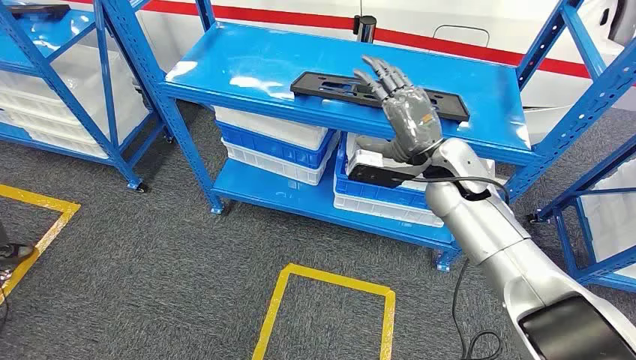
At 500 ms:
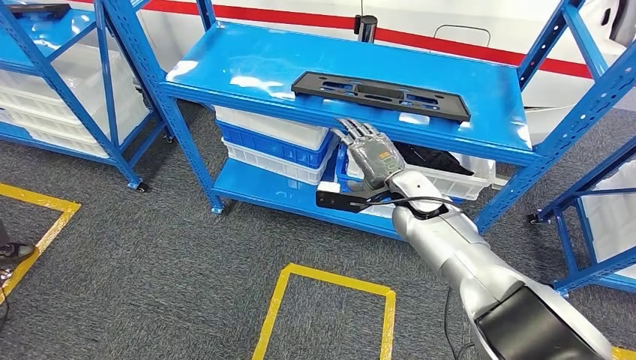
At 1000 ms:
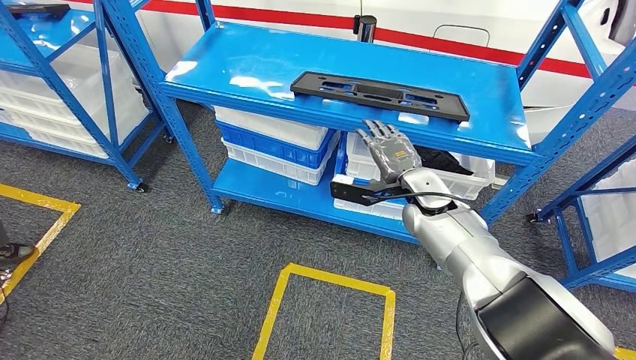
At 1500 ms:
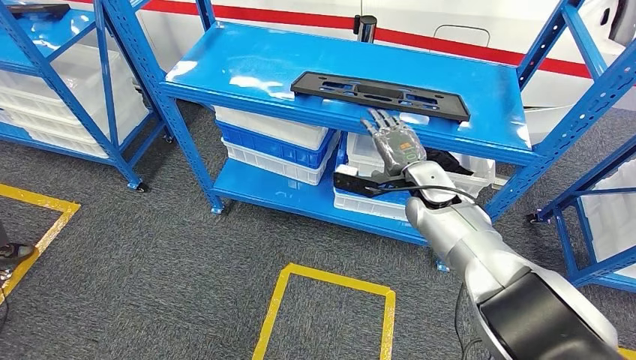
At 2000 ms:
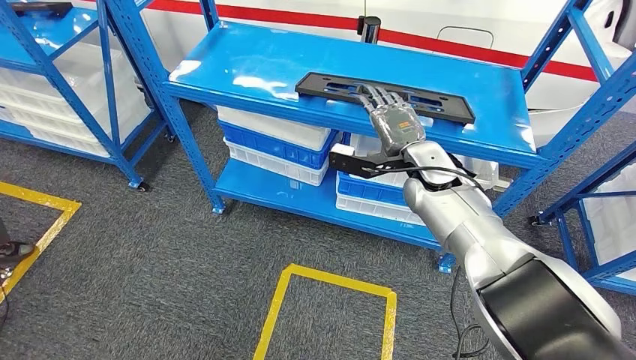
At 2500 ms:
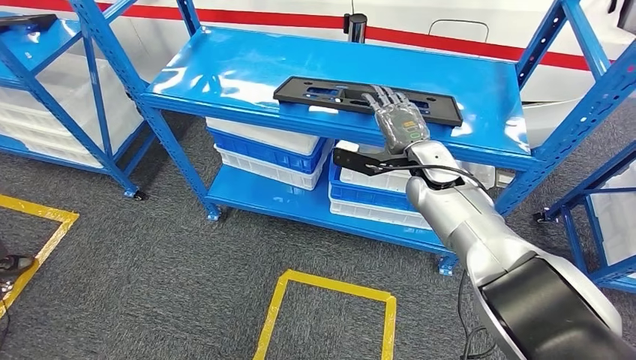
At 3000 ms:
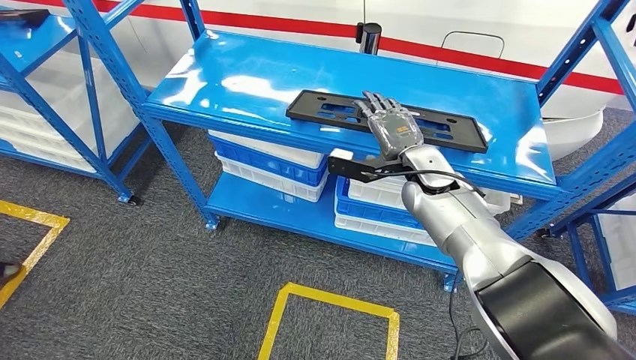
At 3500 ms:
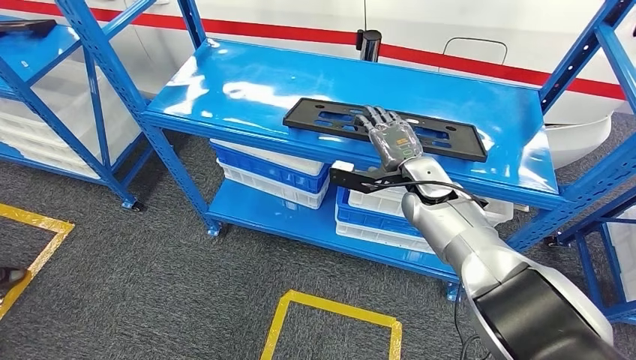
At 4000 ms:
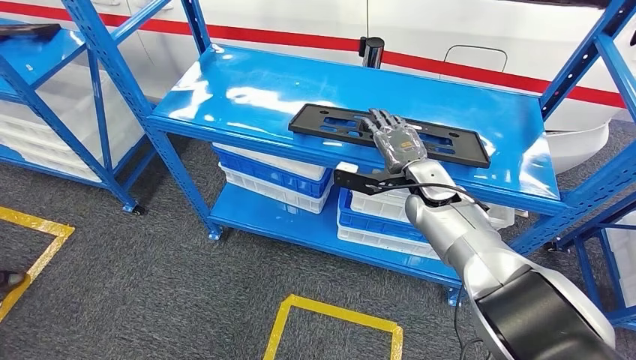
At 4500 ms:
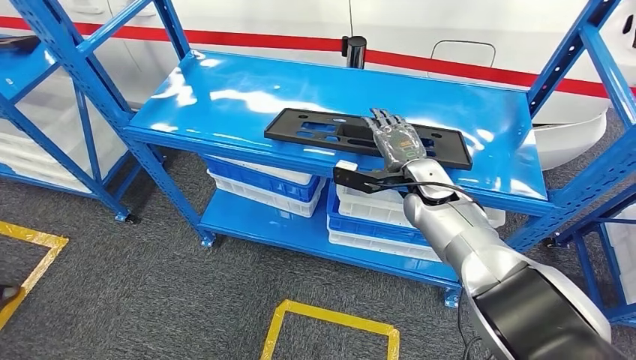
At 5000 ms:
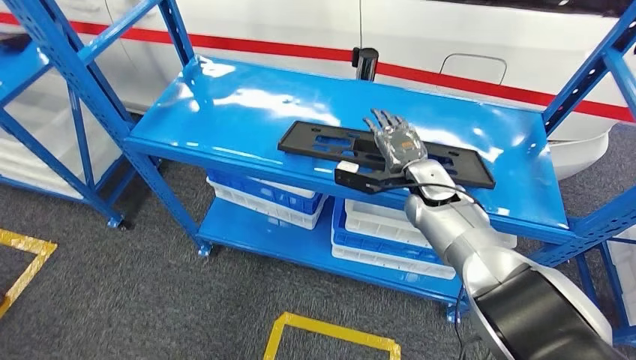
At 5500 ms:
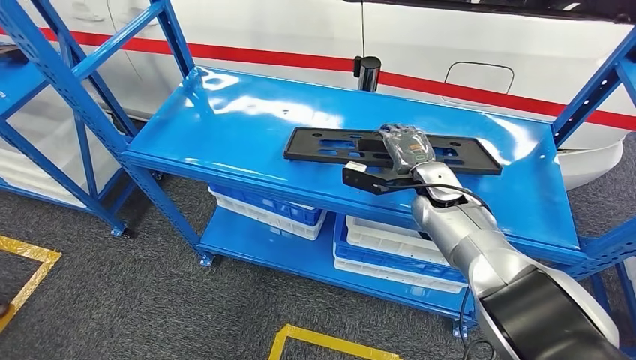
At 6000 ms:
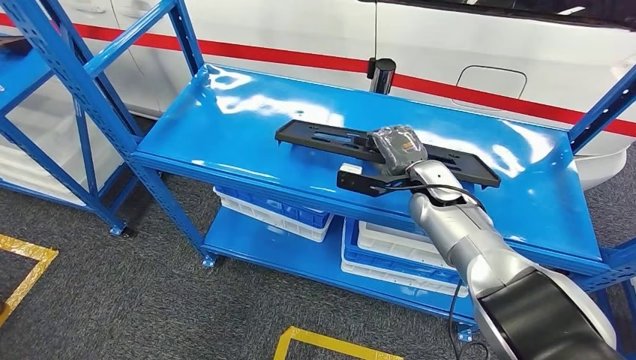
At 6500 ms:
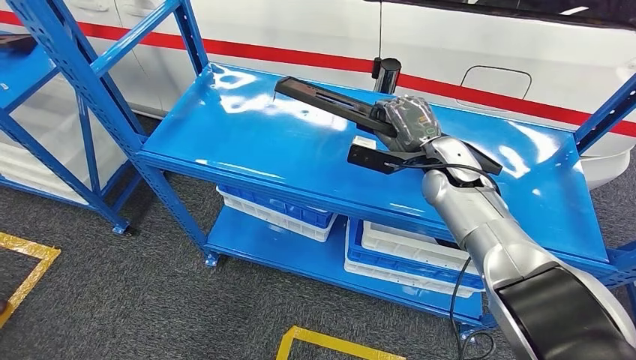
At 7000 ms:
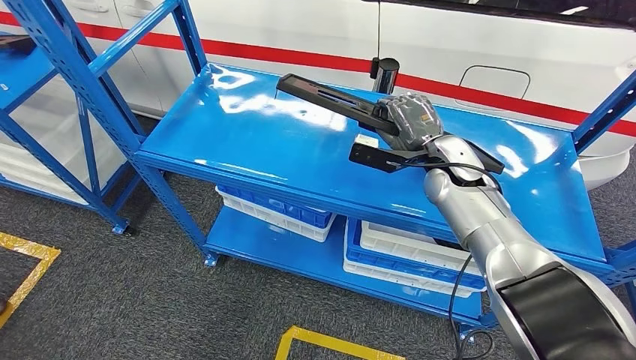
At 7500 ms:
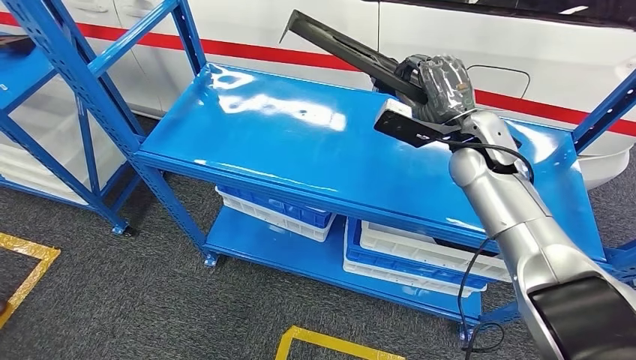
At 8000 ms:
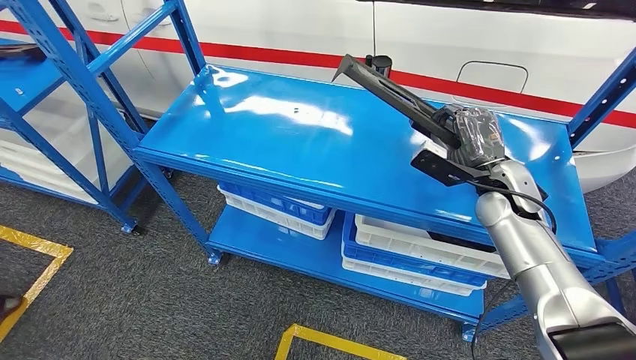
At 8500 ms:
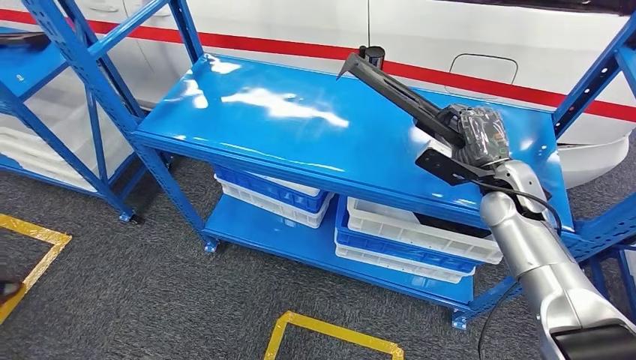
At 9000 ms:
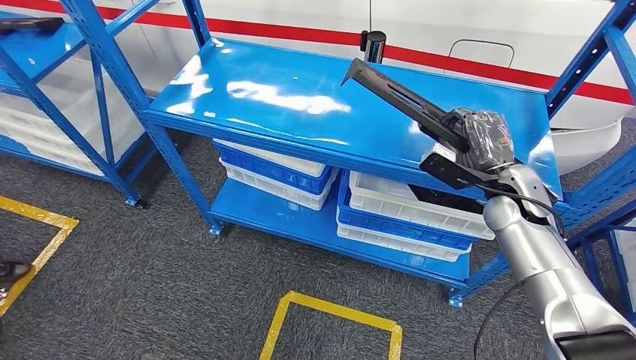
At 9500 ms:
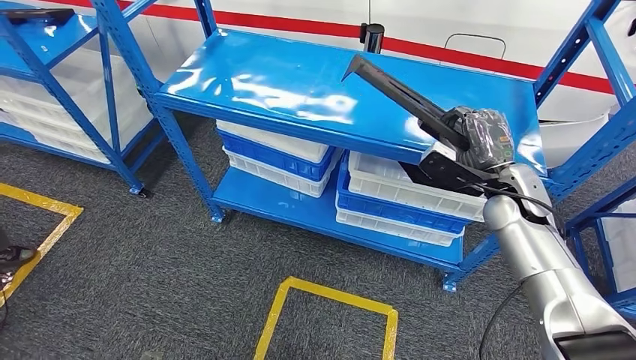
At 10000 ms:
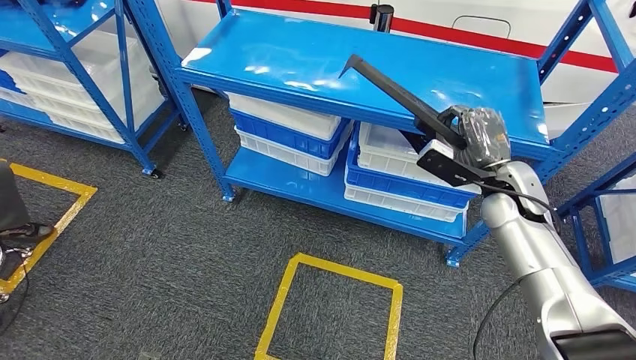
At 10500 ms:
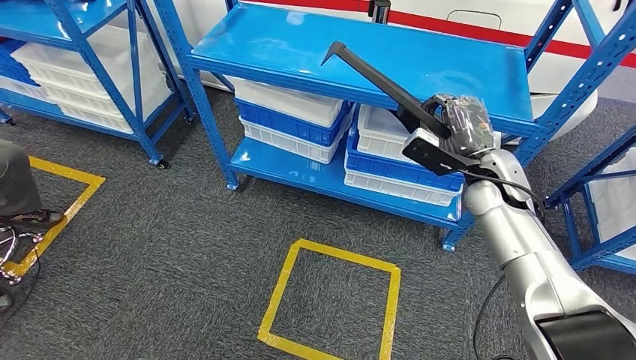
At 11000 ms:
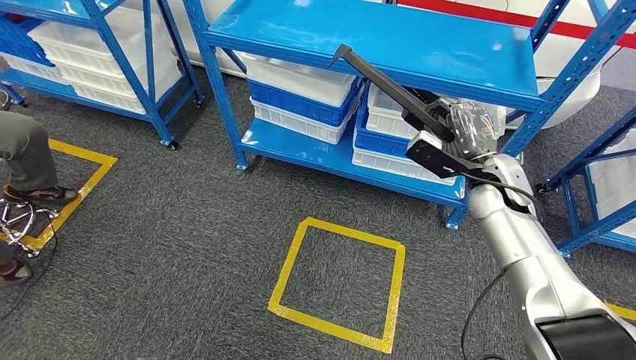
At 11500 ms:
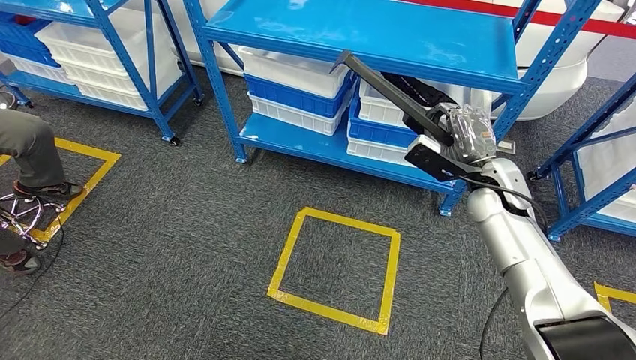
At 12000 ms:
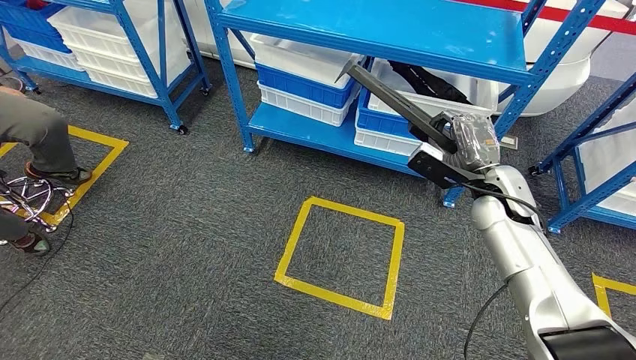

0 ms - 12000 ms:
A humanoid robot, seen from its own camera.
Step, 0 ms - 7000 ms: Pick up the large material from the shelf.

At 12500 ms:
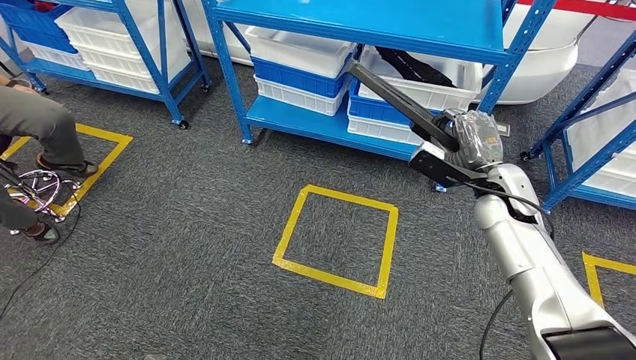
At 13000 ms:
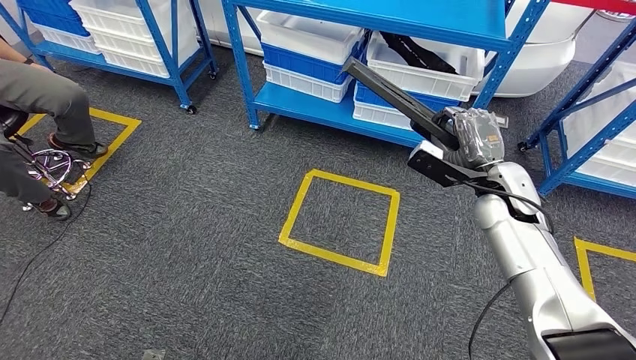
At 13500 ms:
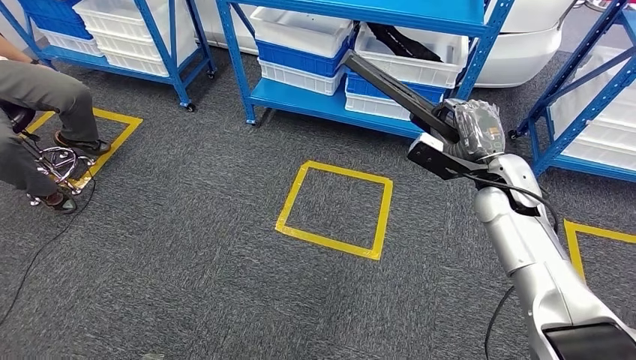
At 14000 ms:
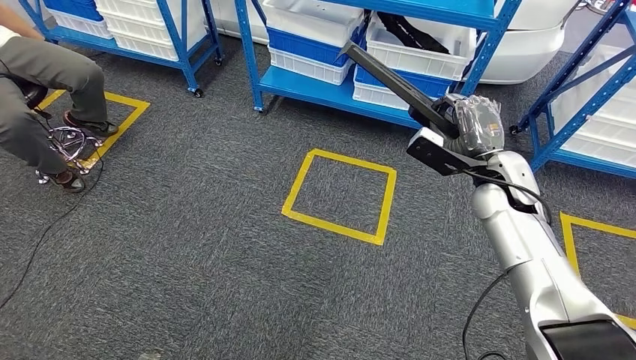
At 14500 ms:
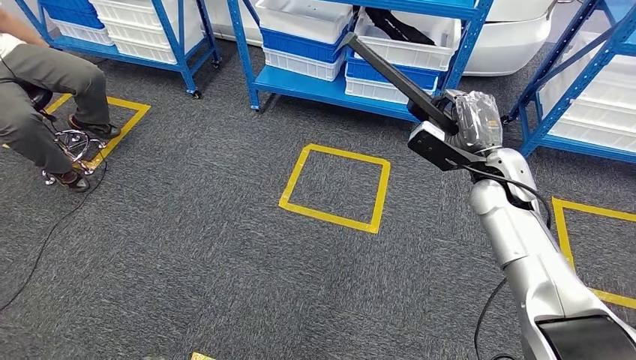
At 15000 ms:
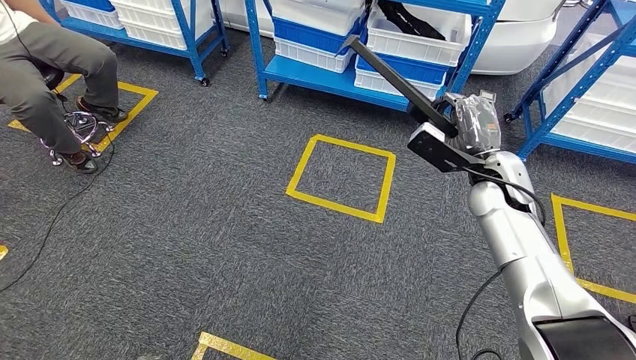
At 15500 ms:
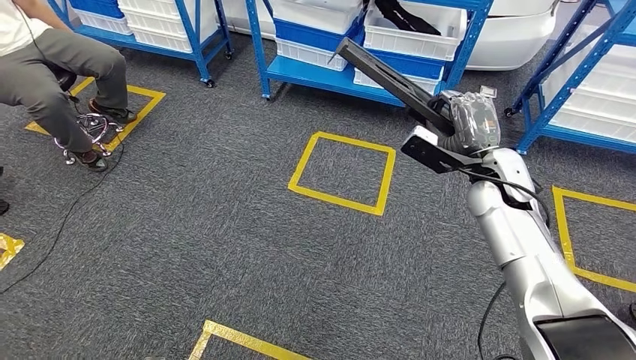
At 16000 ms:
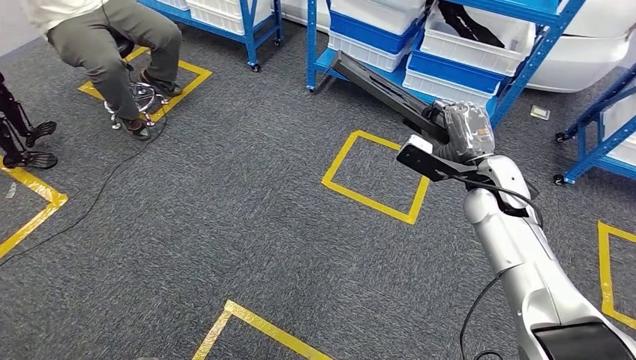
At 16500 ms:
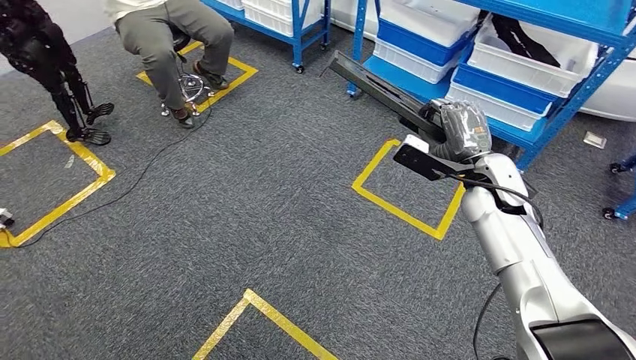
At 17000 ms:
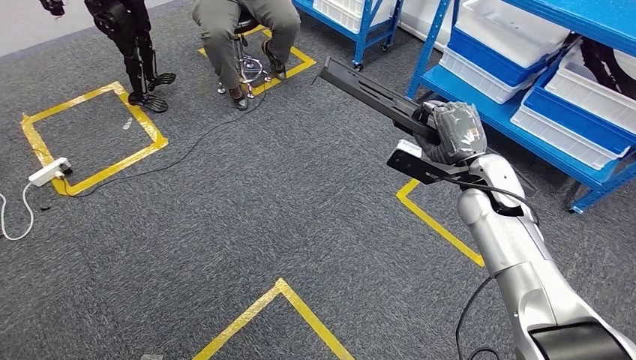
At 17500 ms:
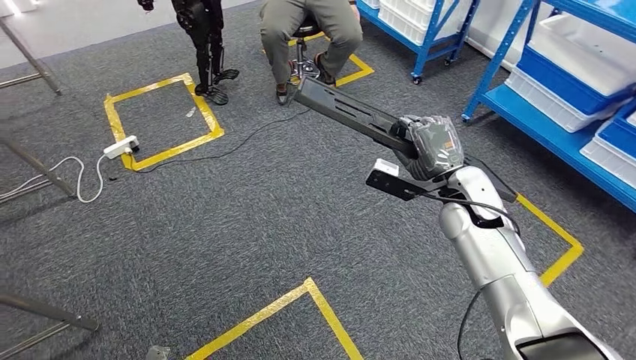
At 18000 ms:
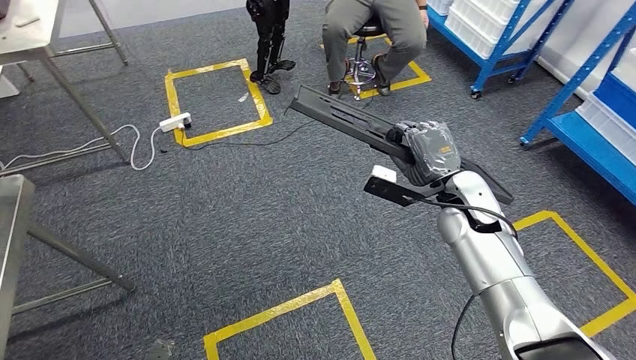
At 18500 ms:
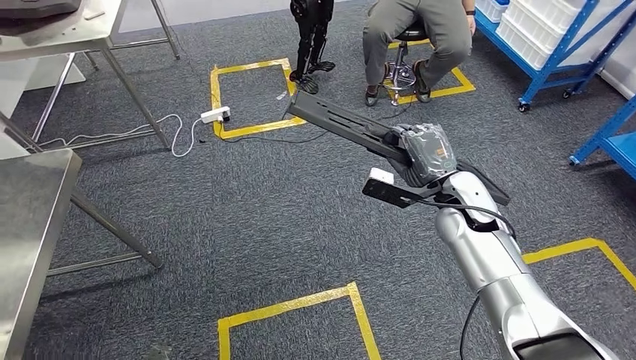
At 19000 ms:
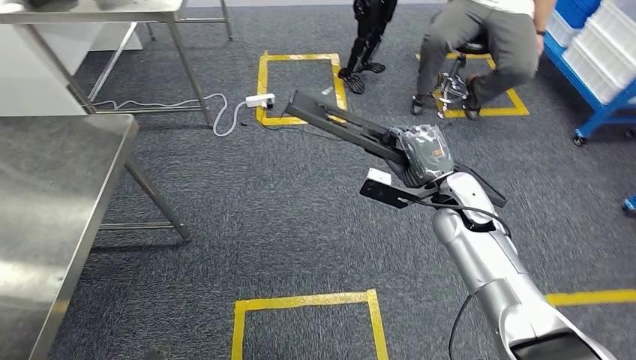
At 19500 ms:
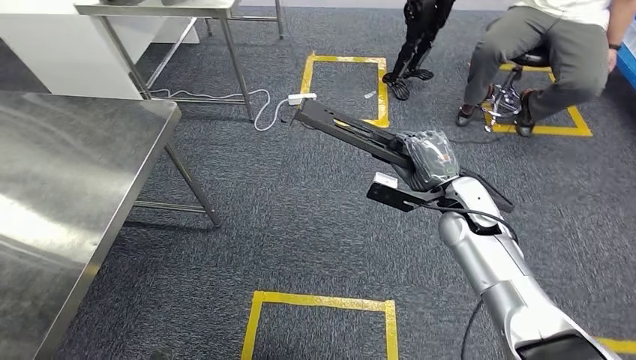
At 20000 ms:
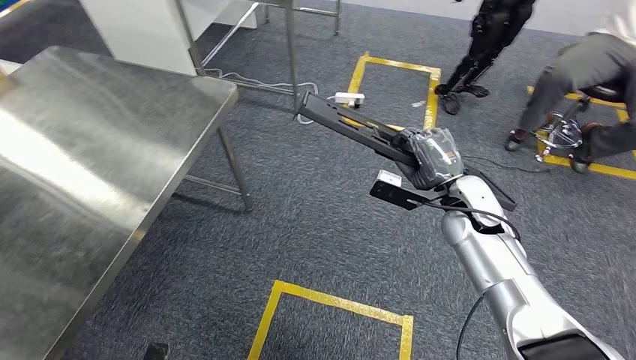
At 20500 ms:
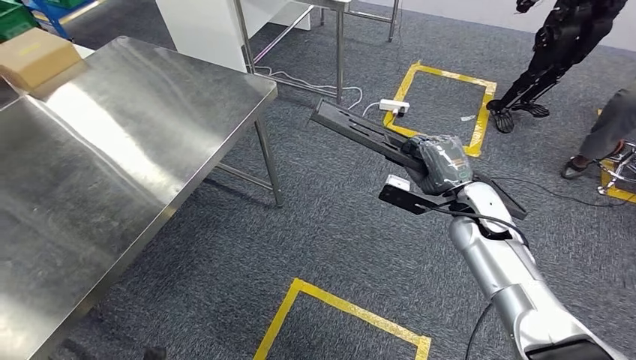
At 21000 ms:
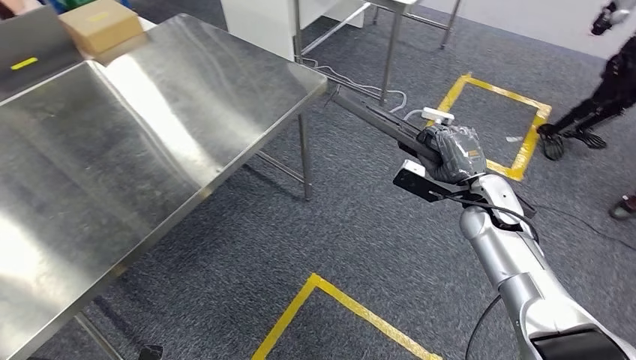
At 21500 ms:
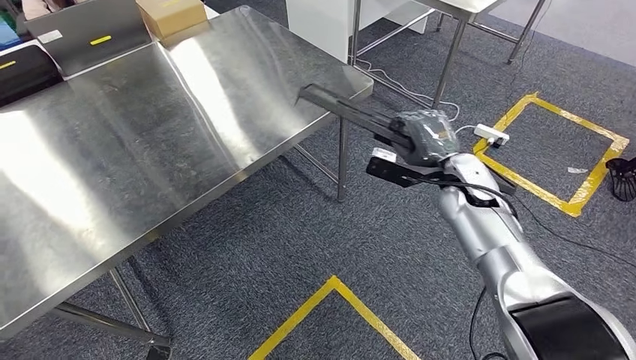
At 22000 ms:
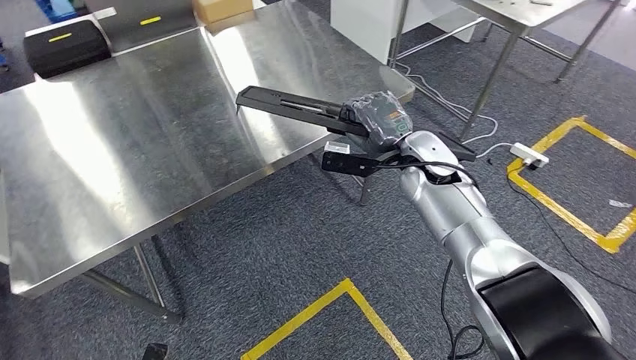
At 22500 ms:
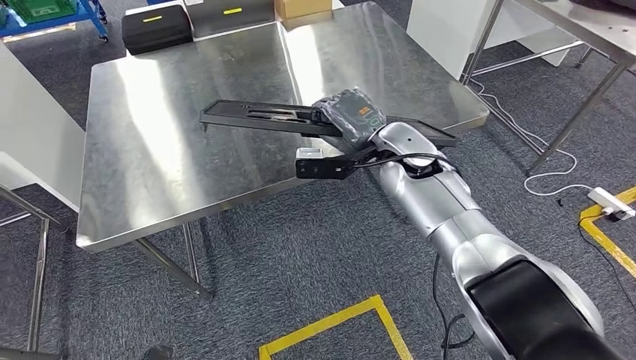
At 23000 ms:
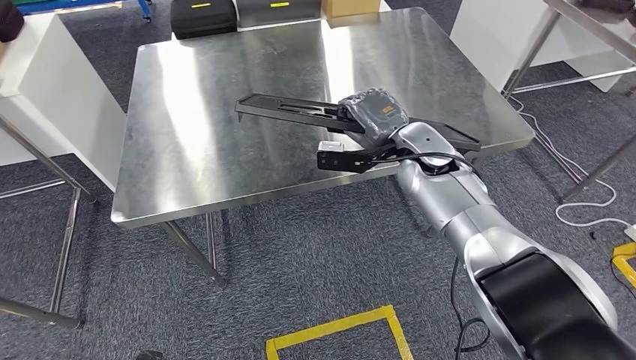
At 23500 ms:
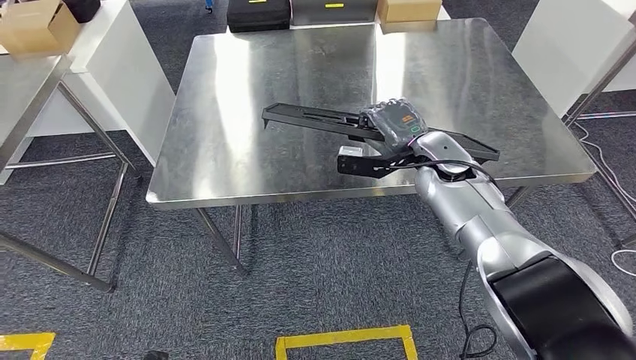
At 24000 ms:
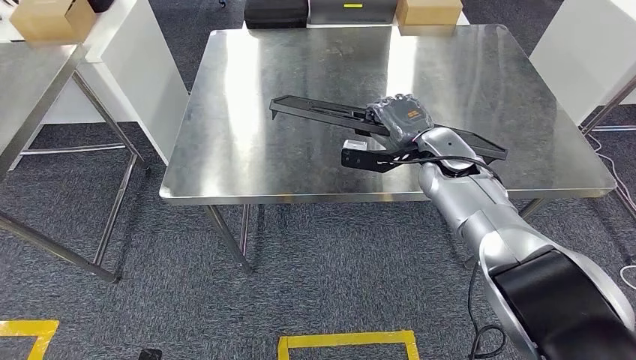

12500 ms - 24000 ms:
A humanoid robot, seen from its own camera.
Step, 12500 ms - 22500 ms: Move the large material to the workbench.
